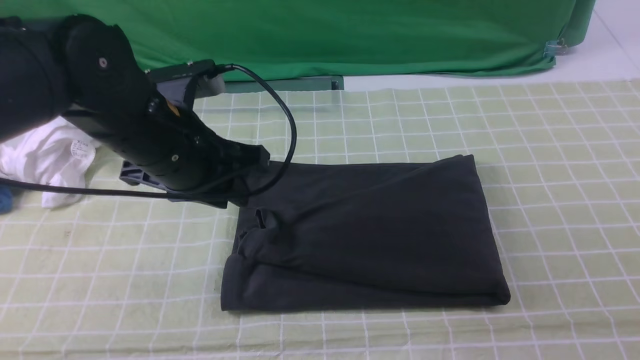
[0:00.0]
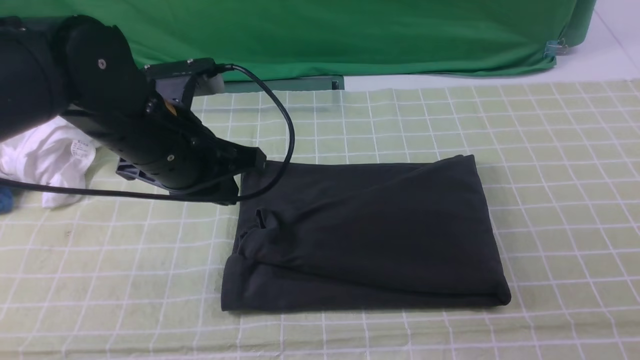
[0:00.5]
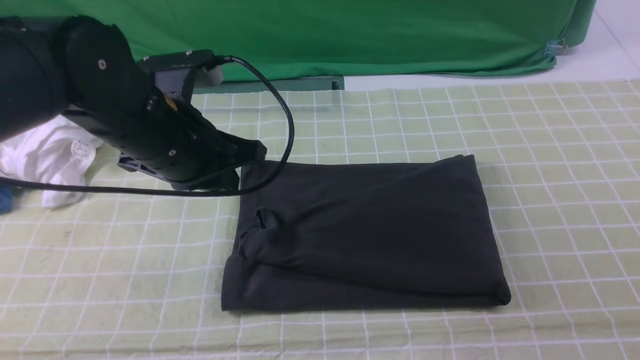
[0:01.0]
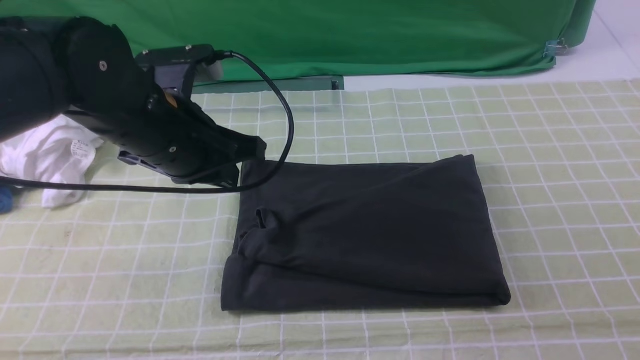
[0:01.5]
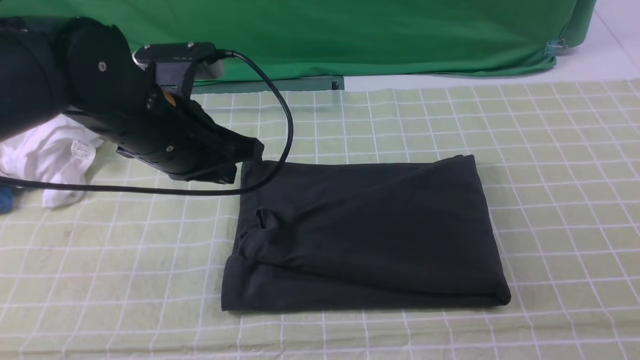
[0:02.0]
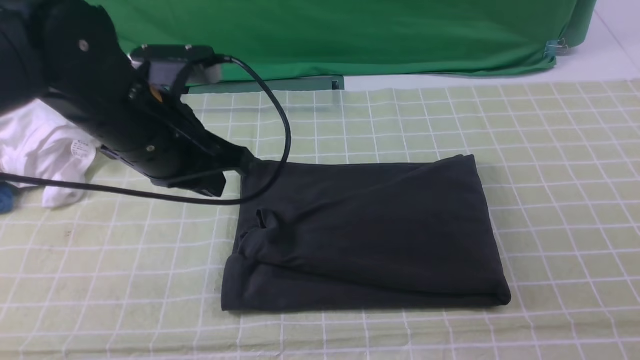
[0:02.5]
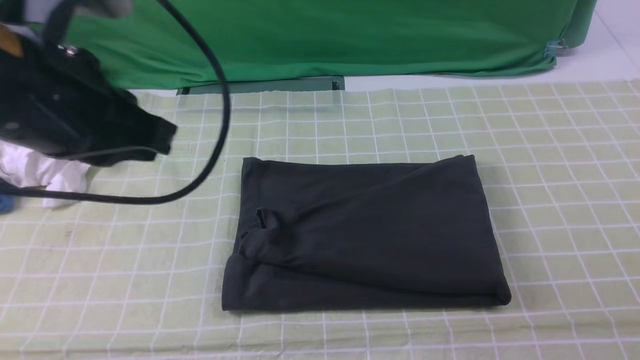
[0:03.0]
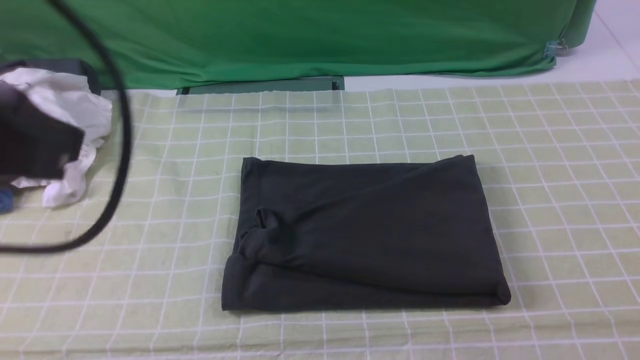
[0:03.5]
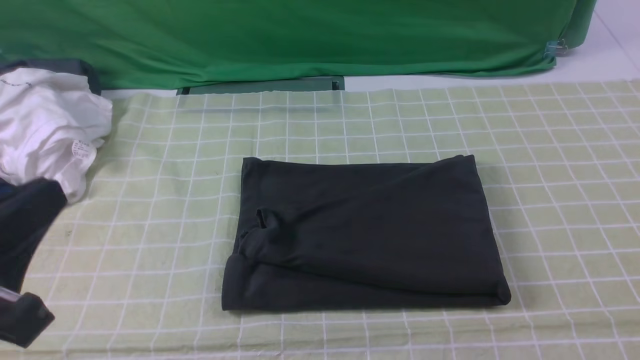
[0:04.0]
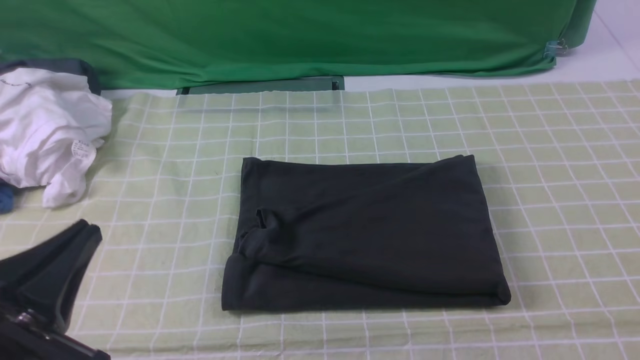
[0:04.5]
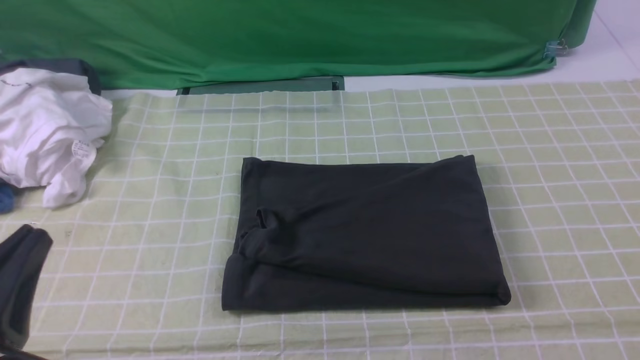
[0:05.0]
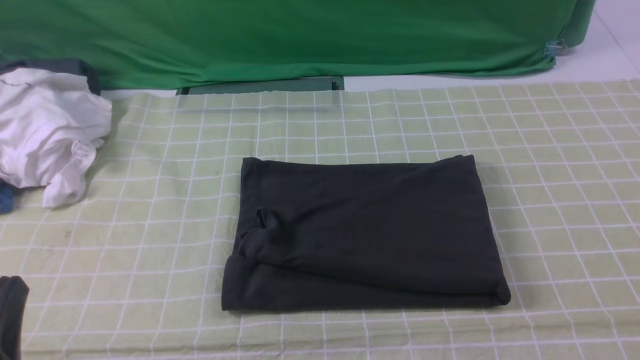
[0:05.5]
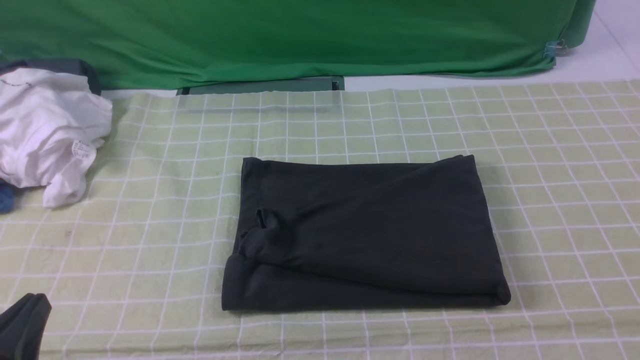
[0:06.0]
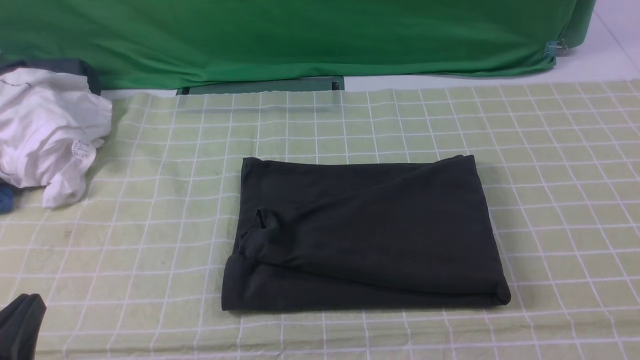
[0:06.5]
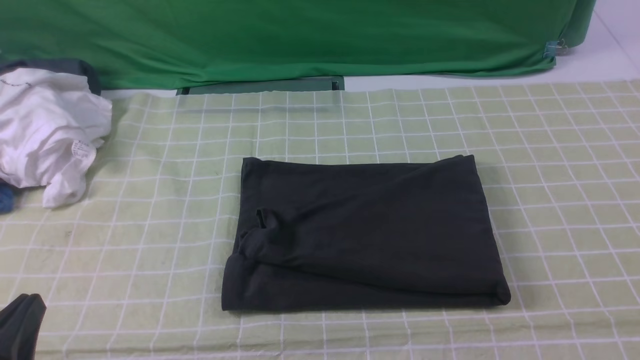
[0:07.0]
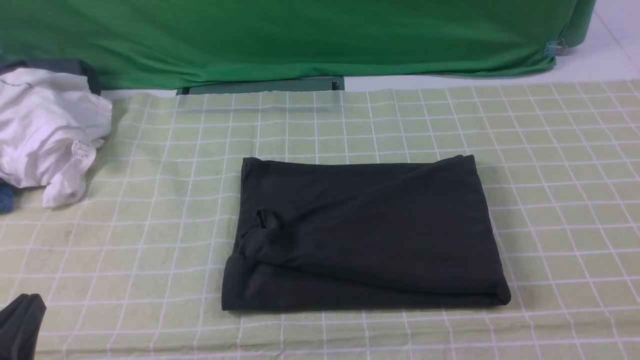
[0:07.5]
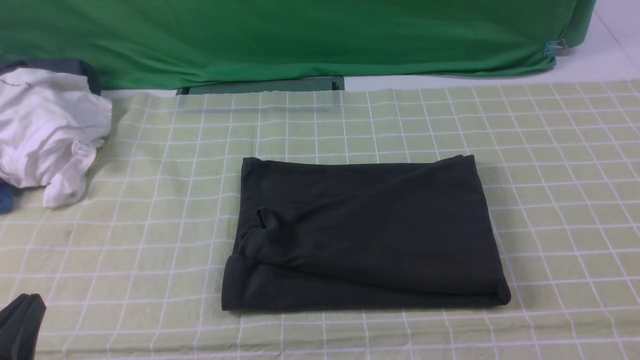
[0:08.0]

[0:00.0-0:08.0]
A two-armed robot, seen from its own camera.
0:00.0 to 0:02.0: The left gripper closes its fingers, while the right gripper moves downward, about 15 cm.
0:02.0 to 0:04.0: The left gripper goes roughly 20 cm backward.
0:04.0 to 0:06.0: The left gripper travels downward by about 10 cm.
0:06.0 to 0:08.0: The two grippers keep their place.

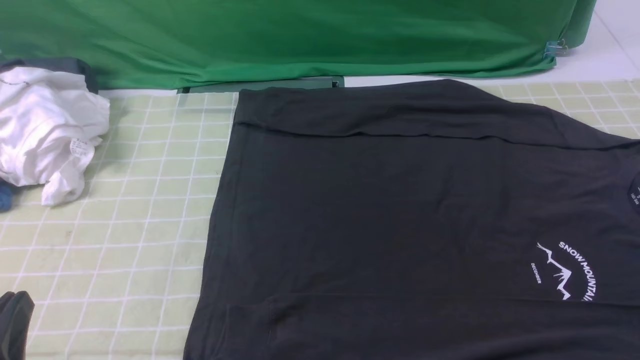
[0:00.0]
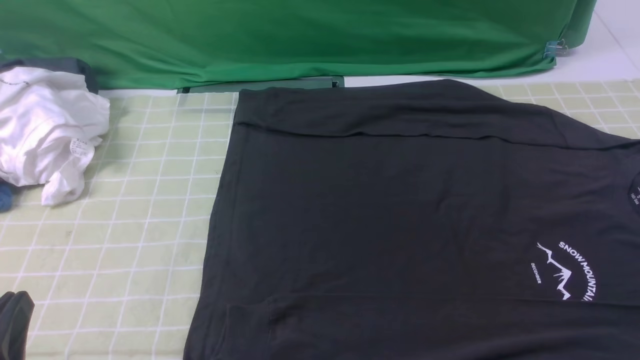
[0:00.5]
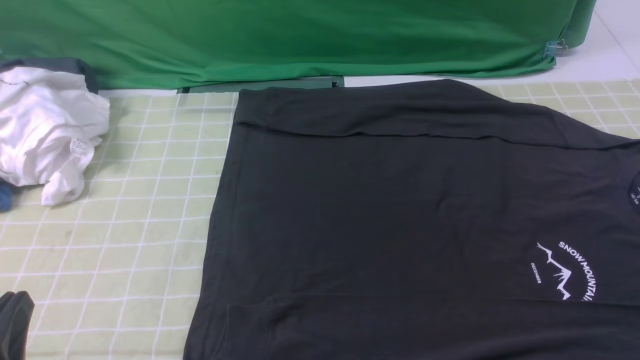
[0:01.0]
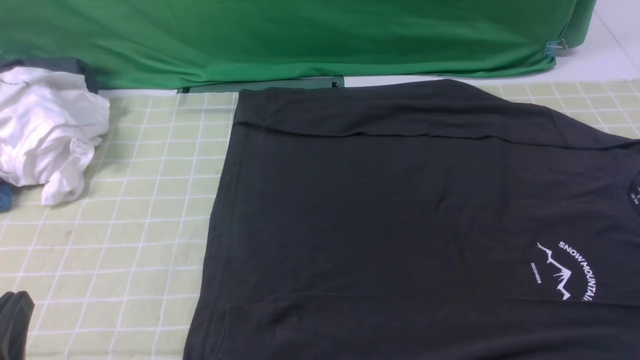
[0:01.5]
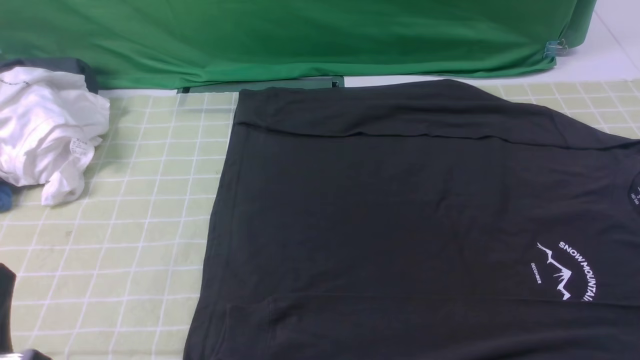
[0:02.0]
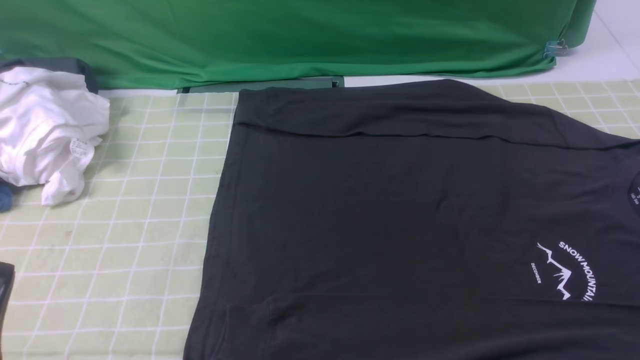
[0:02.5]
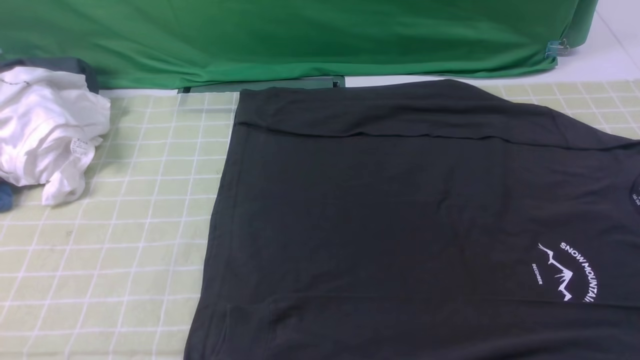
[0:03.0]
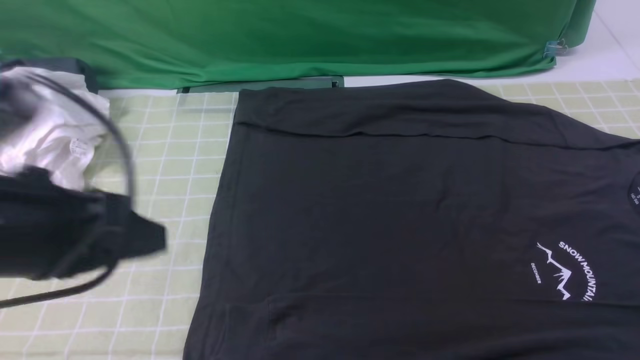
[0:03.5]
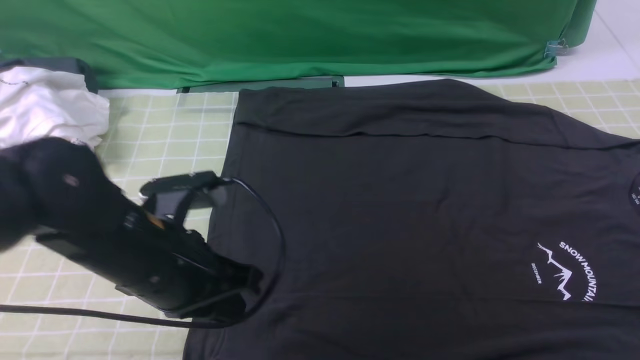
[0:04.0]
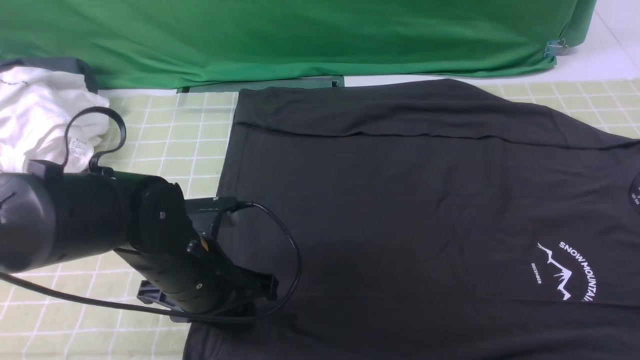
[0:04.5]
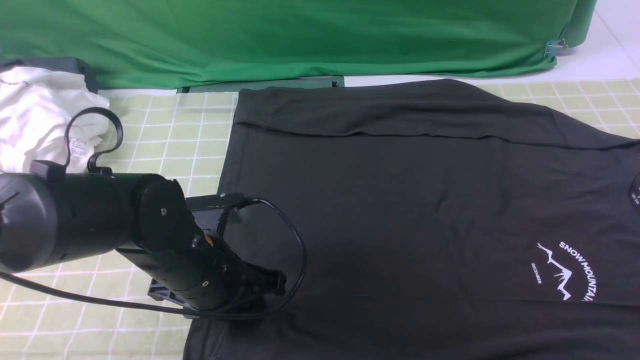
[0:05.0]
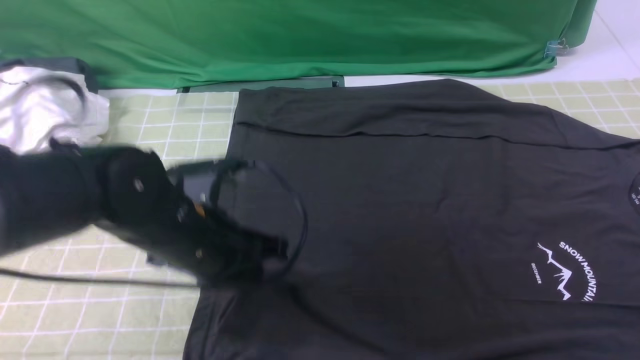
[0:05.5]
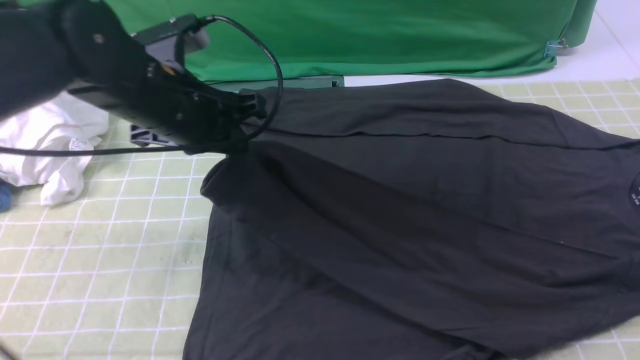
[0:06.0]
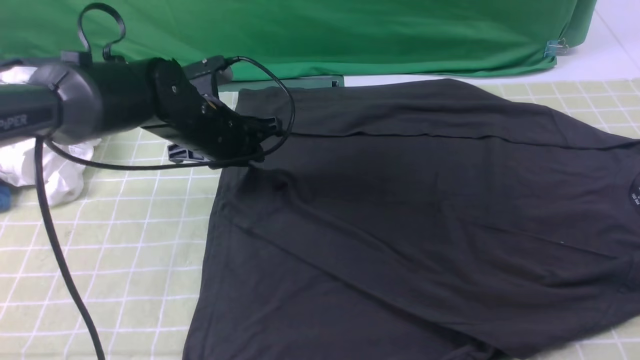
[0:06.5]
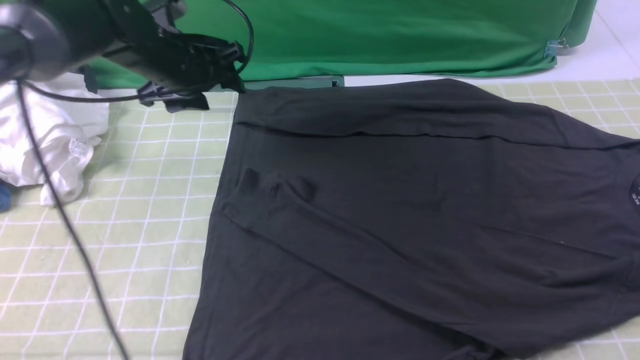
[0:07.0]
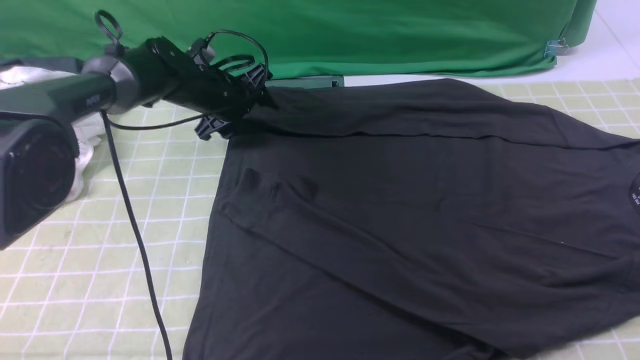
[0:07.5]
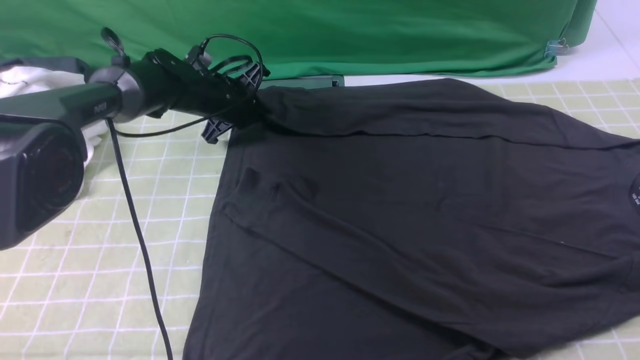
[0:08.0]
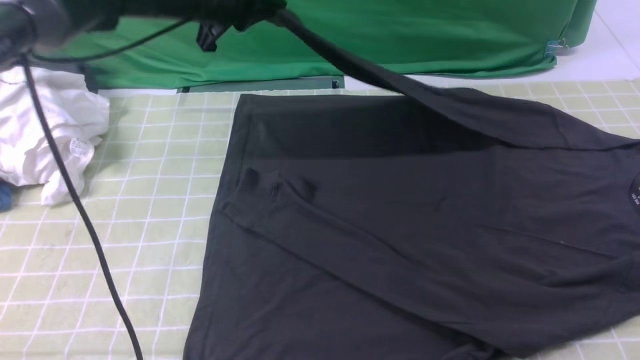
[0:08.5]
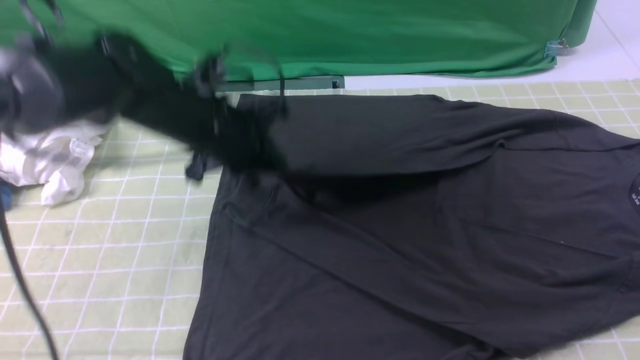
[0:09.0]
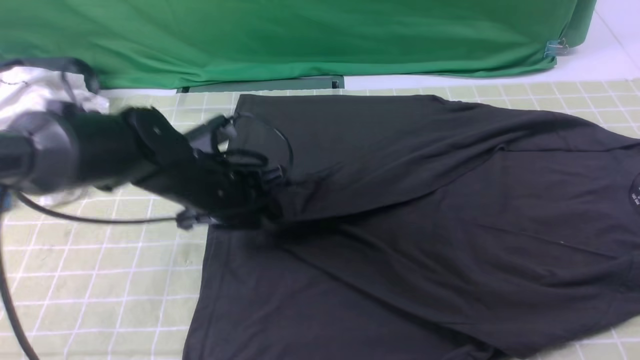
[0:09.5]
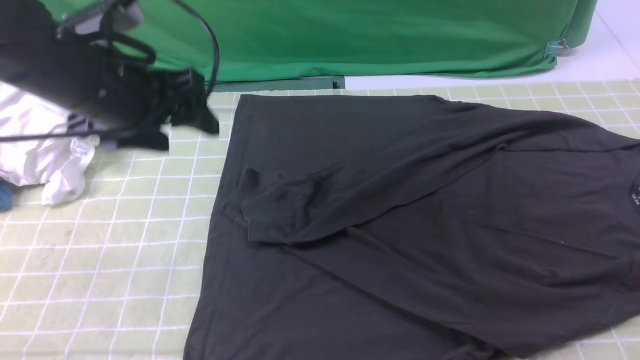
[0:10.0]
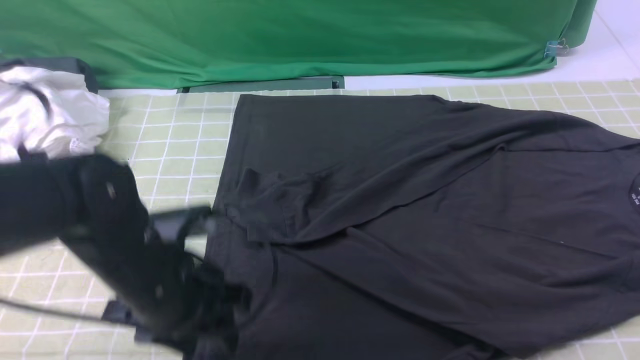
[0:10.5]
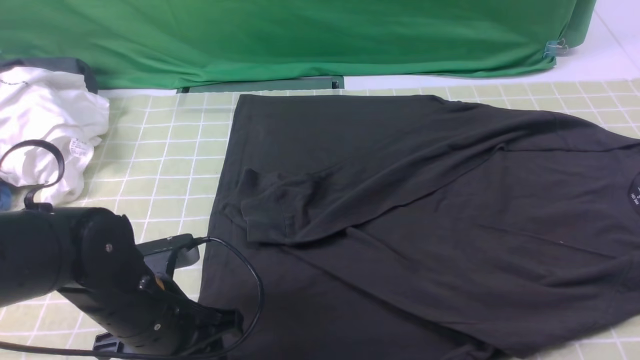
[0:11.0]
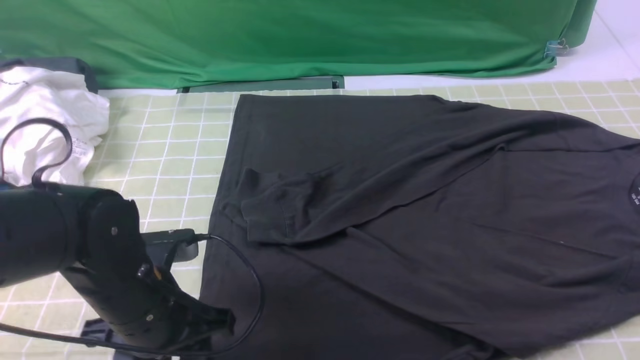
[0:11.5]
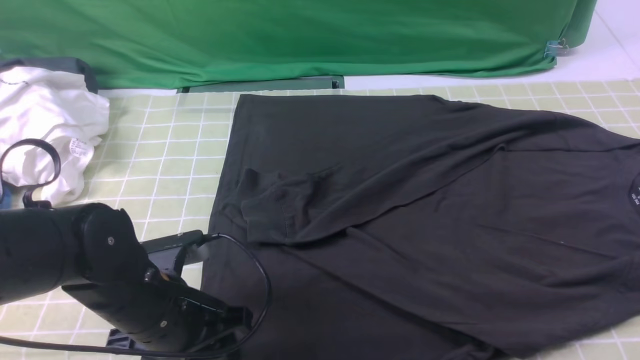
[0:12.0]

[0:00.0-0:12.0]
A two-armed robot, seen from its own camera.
Step, 0:00.0 to 0:05.0: use the left arm to clamp the cuff closest to it.
Step, 0:05.5 to 0:06.5: use the left arm to drag and place the cuff at the centered position on the left edge of the fabric.
Step, 0:07.0 to 0:08.0: use the left arm to clamp the cuff farthest from it.
Step, 0:08.5 to 0:09.5: use the left arm to drag and drop the cuff onto the cuff closest to the left arm.
0:02.0 to 0:04.0: The right gripper travels upward and forward by some 15 cm, and closes. Meanwhile the left gripper shifts about 20 cm forward and to the right.
0:04.0 to 0:06.0: The left gripper goes some 10 cm forward, and opens, then closes again.
0:06.0 to 0:08.0: The left gripper moves forward and downward, approximately 20 cm, and opens and closes again.
0:08.0 to 0:10.0: The left gripper heads backward and upward, covering some 25 cm, and opens its fingers.
0:10.0 to 0:12.0: The left gripper shifts about 15 cm downward and backward.
